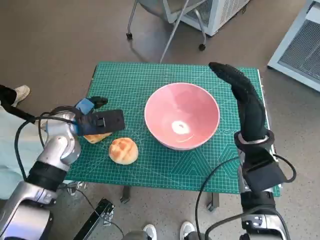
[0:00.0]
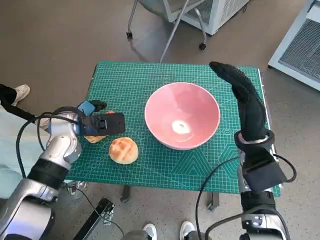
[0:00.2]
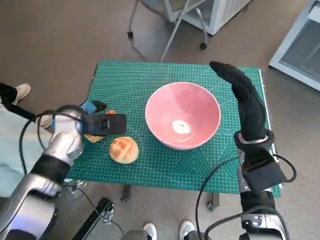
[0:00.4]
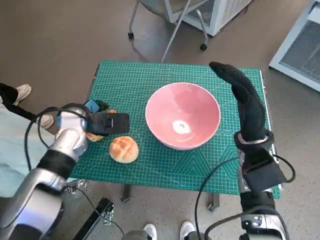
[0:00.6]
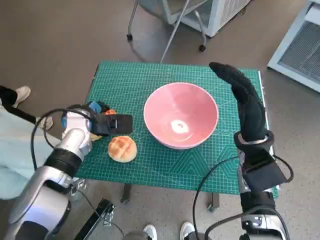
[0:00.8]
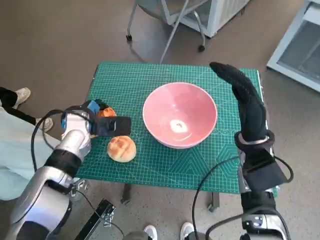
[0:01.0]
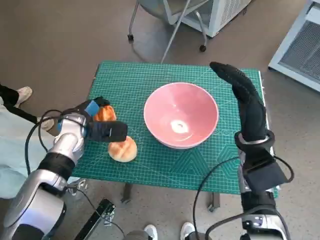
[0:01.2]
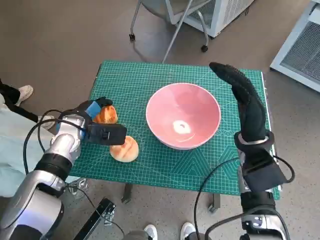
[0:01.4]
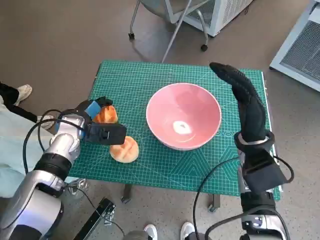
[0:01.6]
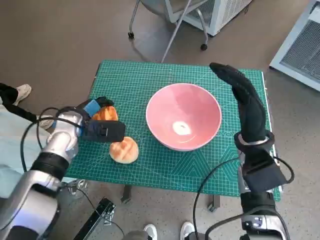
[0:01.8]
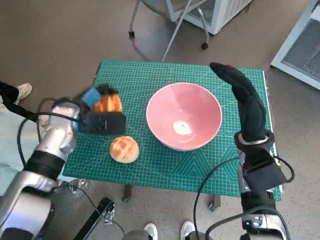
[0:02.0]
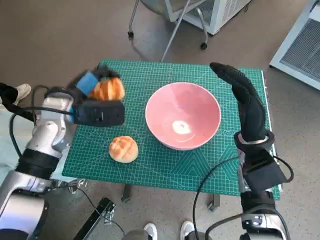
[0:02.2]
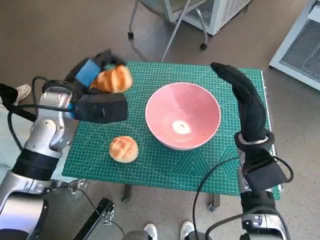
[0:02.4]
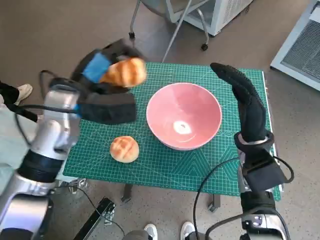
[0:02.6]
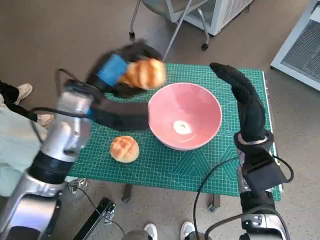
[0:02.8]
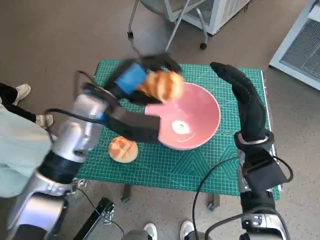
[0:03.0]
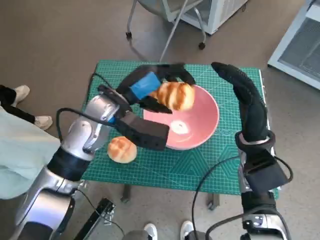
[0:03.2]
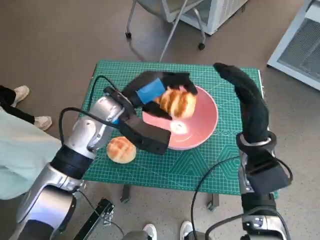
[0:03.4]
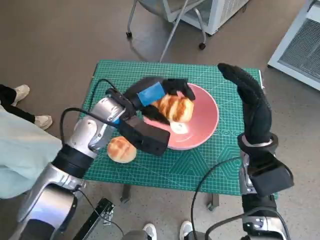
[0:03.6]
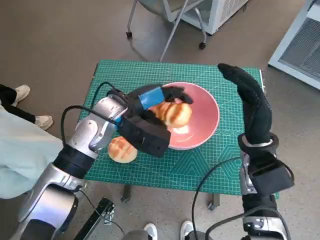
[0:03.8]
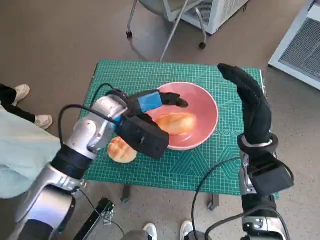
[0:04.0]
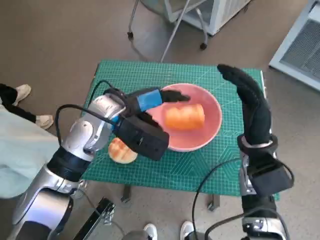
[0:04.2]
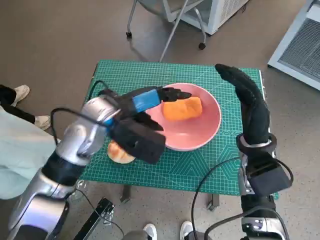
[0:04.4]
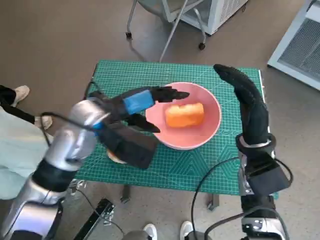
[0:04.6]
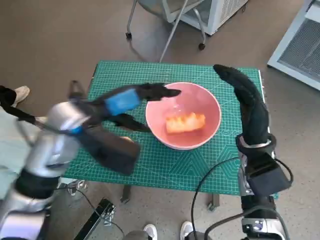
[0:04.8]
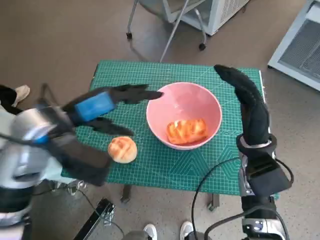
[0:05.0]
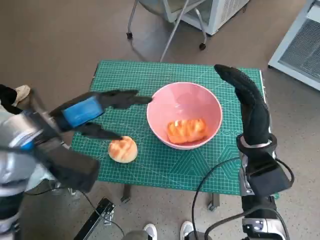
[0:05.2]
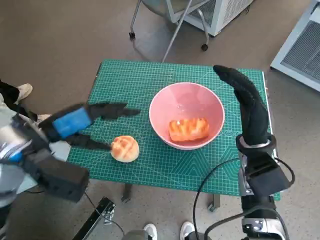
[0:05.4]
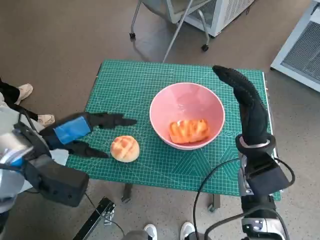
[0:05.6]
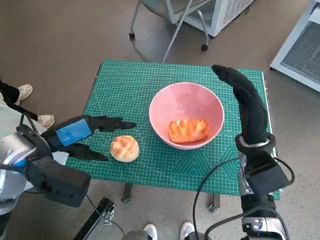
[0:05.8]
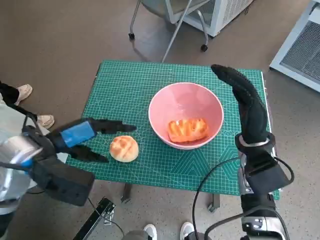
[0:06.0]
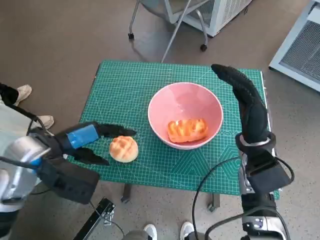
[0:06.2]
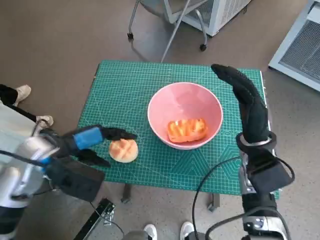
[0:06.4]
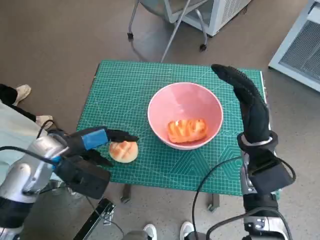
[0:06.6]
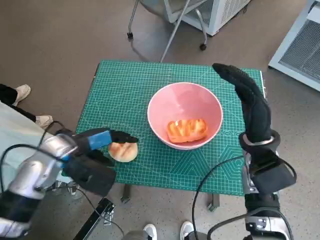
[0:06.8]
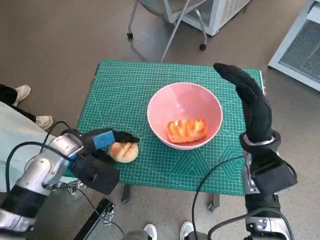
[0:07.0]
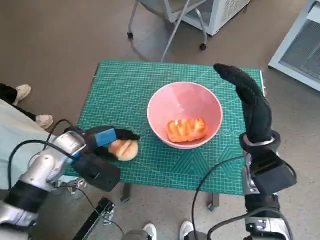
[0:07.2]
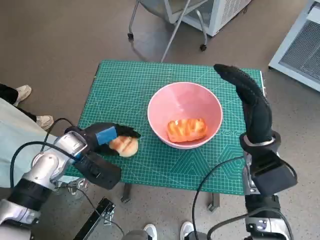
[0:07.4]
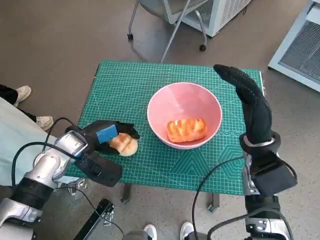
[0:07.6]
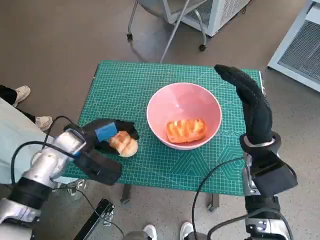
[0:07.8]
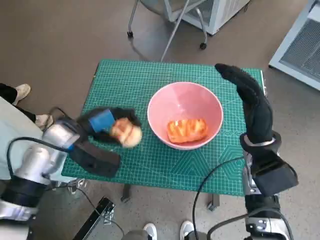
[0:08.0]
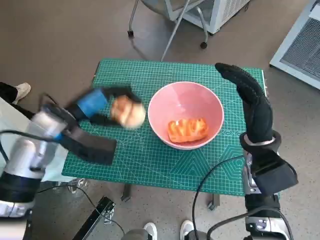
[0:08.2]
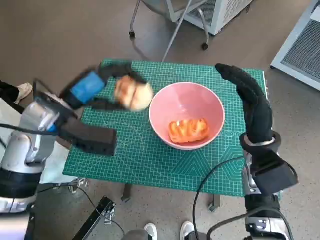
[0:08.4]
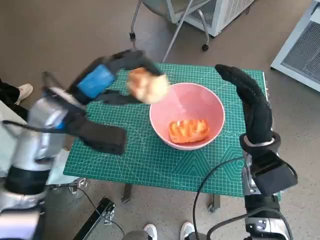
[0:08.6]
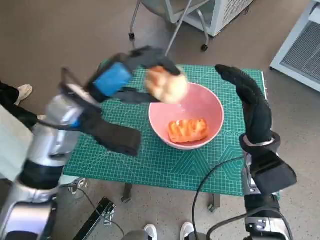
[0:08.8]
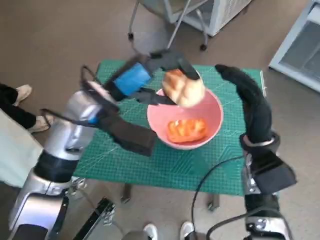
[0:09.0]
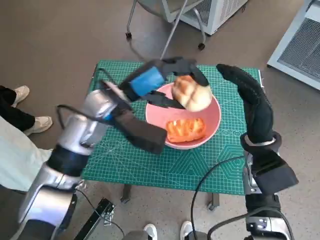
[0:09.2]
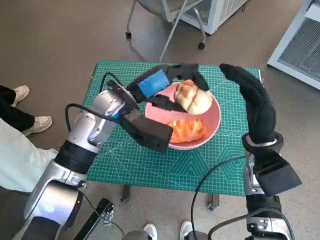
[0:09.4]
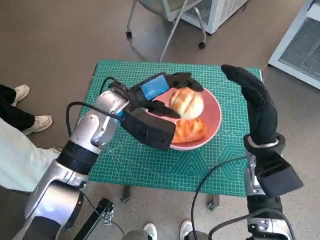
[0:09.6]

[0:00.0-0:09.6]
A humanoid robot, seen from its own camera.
Task of the whole recording: Push the bowl to the center of the table and put the bread into the bowl.
Step, 0:01.0 to 0:04.6: Place the long bread in pink bowl with left hand.
Step, 0:05.0 to 0:07.0: Grasp the round bread with left hand.
0:00.0 to 0:01.6: There are only small adjustments of the hands.
0:01.6 to 0:03.2: The left hand shifts some 15 cm to the right and upward.
0:03.2 to 0:04.8: The left hand shifts by roughly 5 cm.
0:04.8 to 0:06.4: The left hand heads to the left, covering approximately 5 cm.
0:06.4 to 0:08.0: The left hand moves approximately 5 cm.
0:08.0 to 0:09.6: The left hand heads to the right and upward, covering approximately 10 cm.

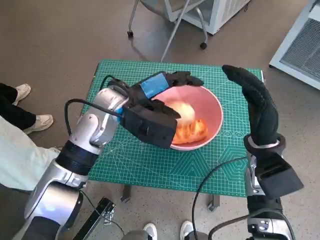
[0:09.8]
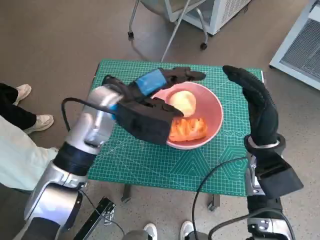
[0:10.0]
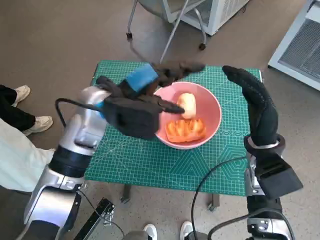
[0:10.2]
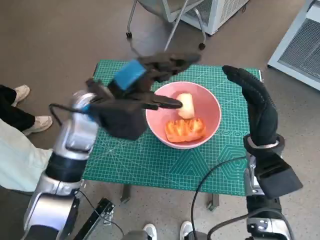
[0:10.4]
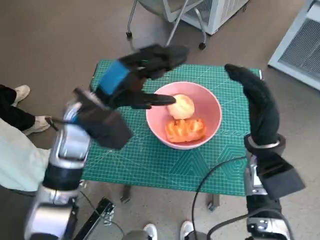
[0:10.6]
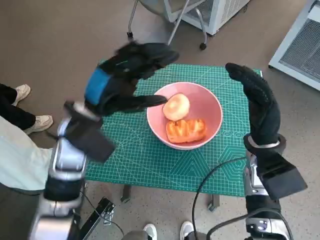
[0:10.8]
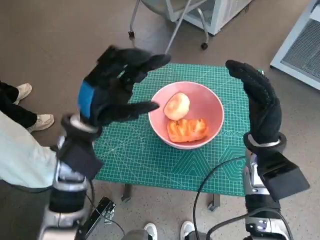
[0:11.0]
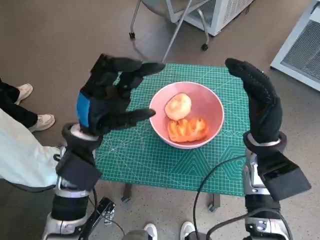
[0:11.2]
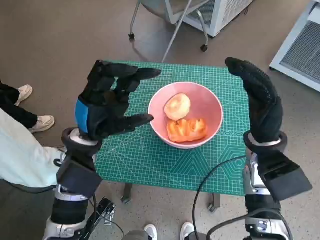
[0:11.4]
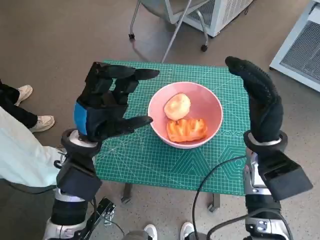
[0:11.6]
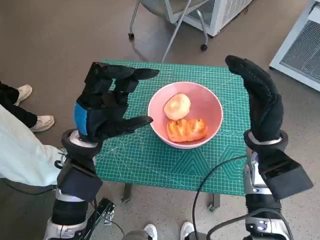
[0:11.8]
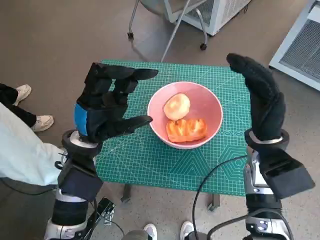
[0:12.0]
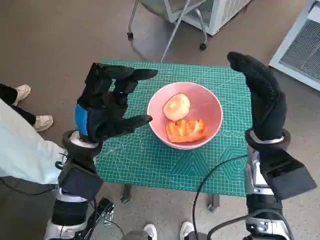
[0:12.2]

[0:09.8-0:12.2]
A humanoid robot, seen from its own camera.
Task of the whole recording: Push the bowl to the center of the table and put the bread into the bowl.
0:09.8 to 0:11.0: The left hand shifts approximately 10 cm backward and to the left.
0:11.0 to 0:12.2: There are only small adjustments of the hands.

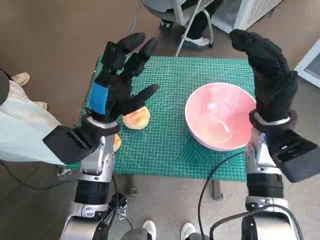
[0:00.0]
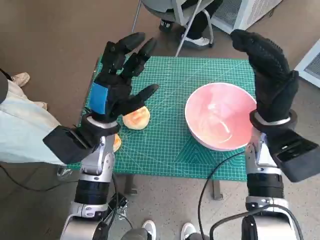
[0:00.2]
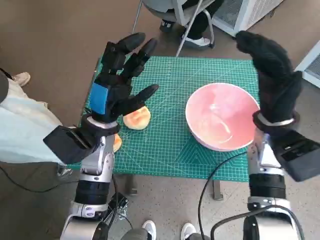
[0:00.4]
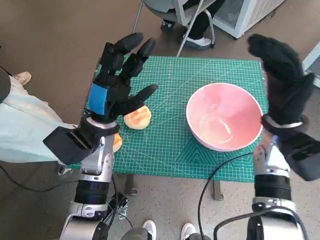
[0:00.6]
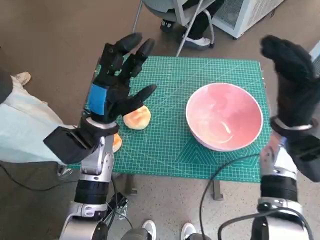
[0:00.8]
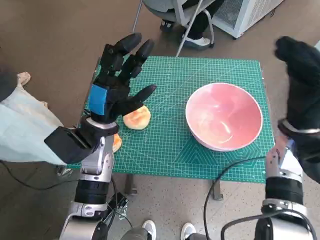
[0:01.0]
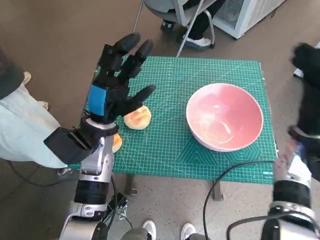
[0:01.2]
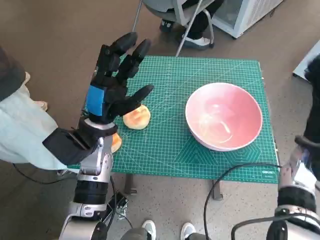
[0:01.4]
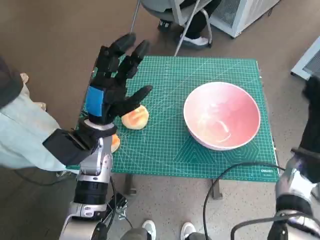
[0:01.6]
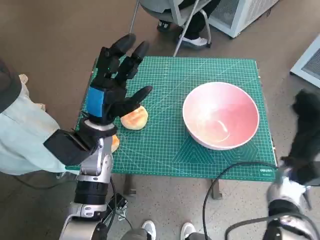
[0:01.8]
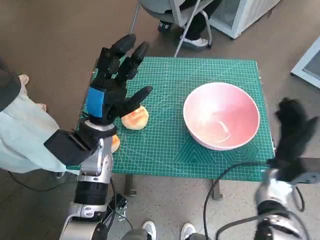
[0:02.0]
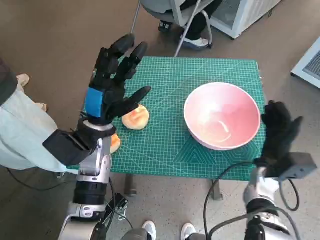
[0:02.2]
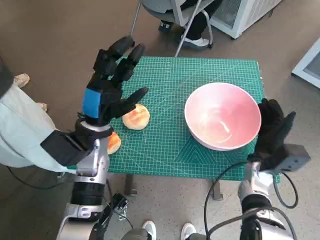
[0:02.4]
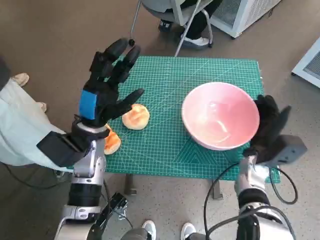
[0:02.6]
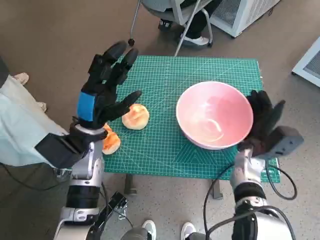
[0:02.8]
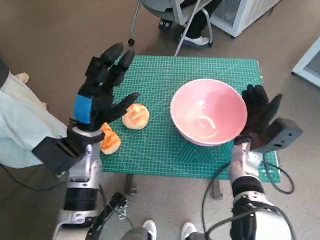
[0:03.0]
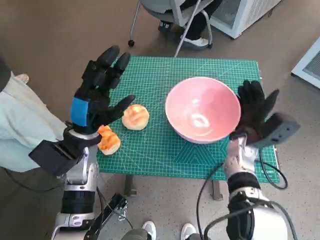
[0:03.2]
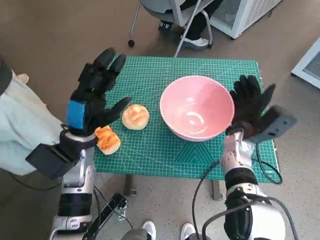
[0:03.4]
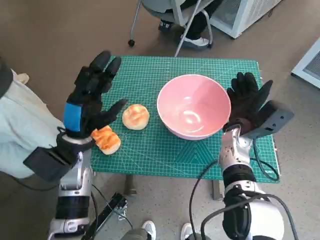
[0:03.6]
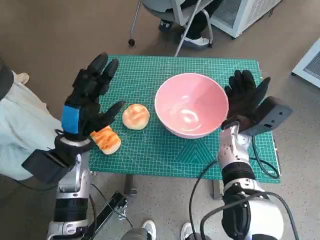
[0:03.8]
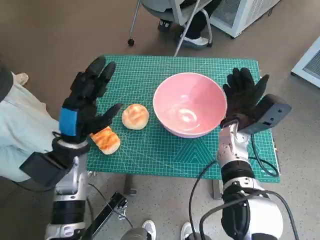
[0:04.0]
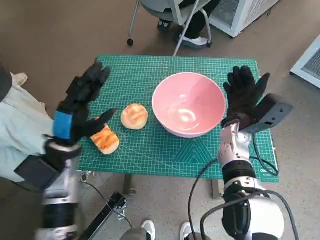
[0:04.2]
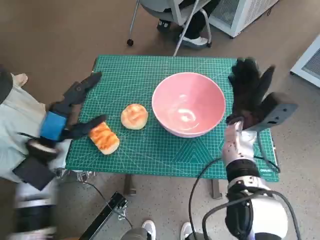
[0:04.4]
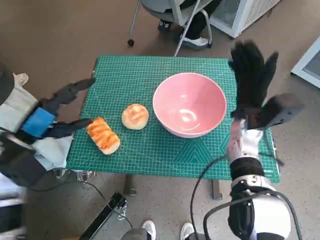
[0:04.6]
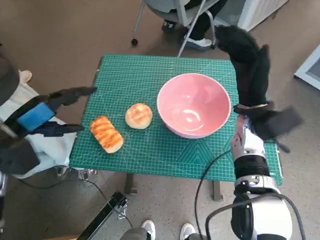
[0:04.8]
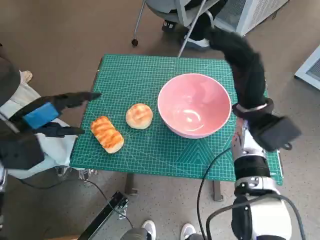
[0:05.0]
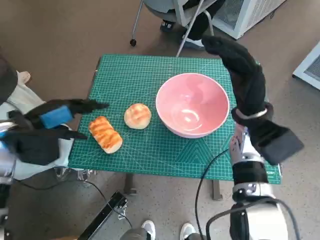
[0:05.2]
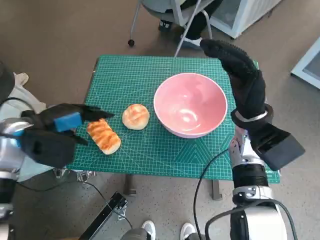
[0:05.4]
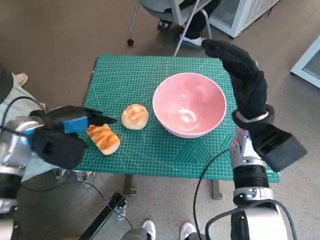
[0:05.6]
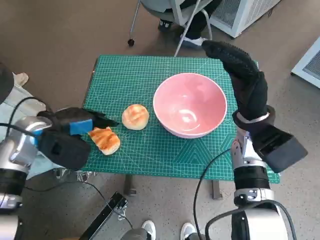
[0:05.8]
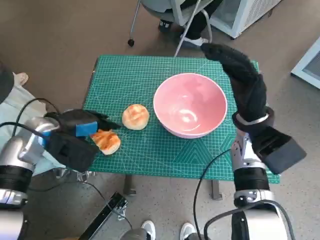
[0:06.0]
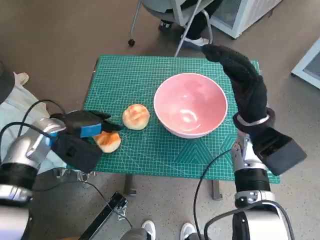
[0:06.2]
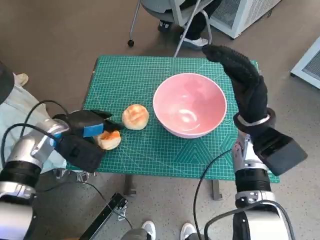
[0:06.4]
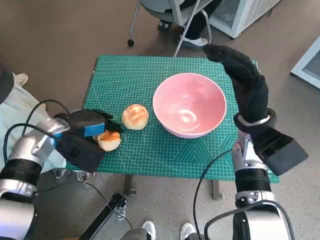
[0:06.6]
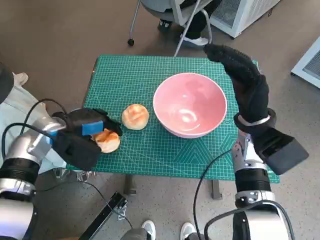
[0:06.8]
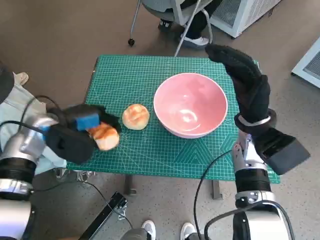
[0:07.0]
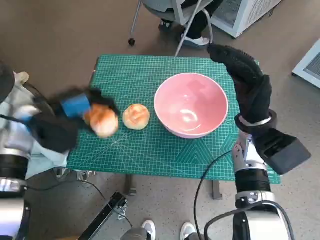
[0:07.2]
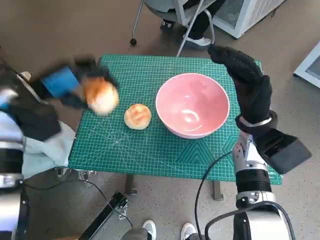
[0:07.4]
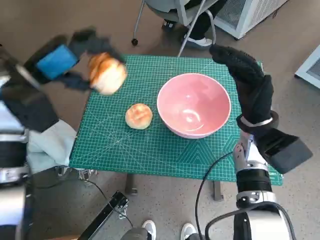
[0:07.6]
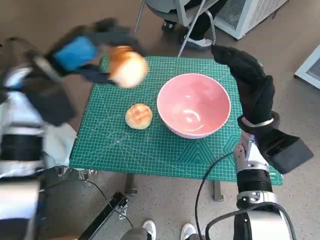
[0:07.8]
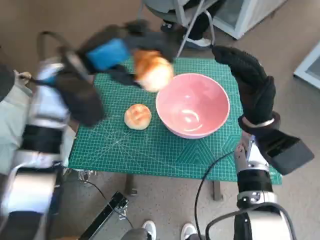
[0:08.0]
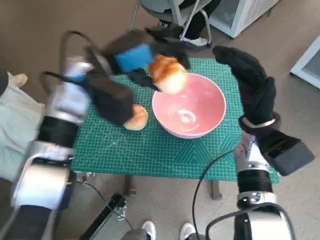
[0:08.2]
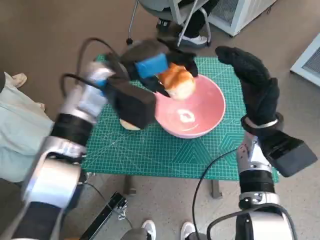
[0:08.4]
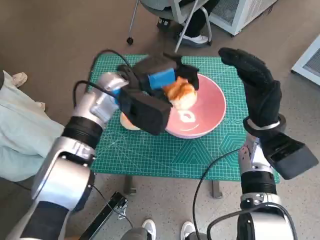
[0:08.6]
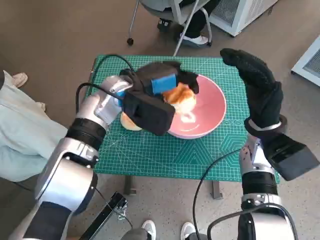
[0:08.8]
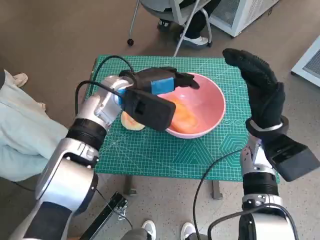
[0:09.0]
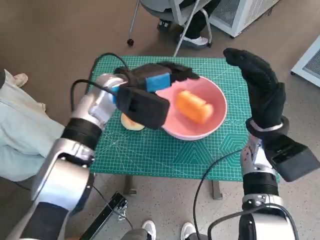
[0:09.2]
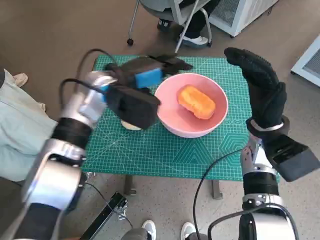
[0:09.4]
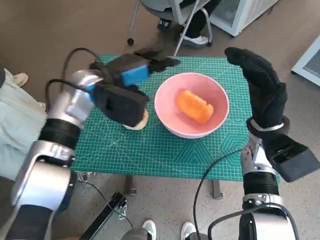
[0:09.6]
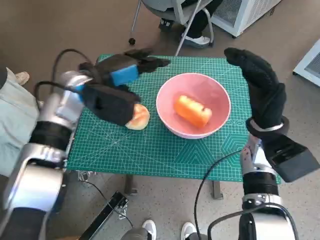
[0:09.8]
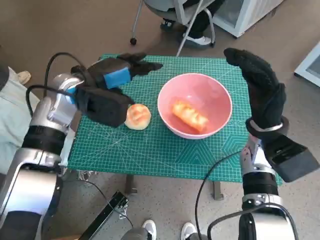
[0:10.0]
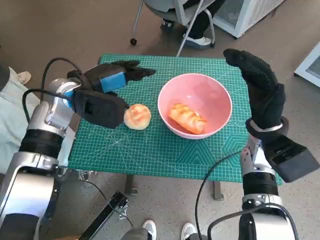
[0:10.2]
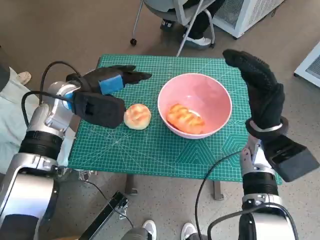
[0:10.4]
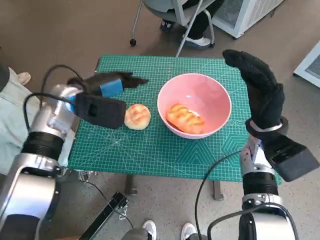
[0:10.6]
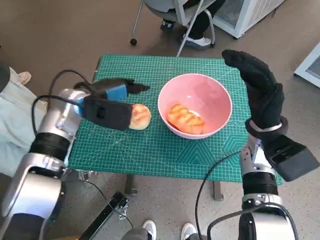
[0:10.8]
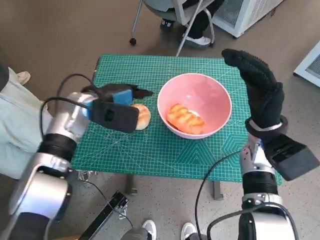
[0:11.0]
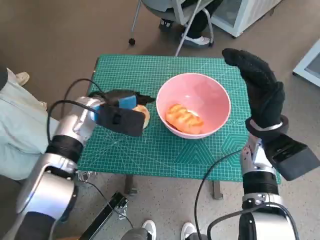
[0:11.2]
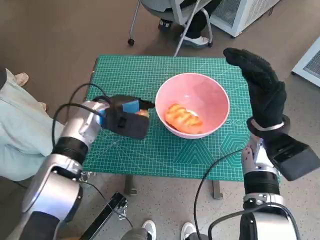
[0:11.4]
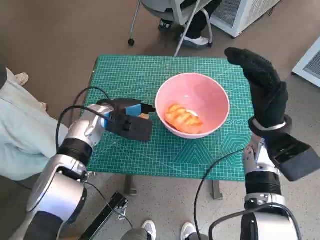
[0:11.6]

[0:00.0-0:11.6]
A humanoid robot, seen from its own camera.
Task of the whole recording: Push the bowl to the center of the table and put the bread into the bowl.
Step, 0:00.0 to 0:04.4: Move the pink bowl to the center of table with right hand.
Step, 0:04.6 to 0:06.6: Grasp the long bread with left hand.
Step, 0:06.8 to 0:09.0: Place the long bread in pink bowl with left hand.
0:01.4 to 0:02.8: The right hand moves to the left and downward, roughly 10 cm.
0:02.8 to 0:04.4: The left hand goes roughly 10 cm to the left. The right hand is displaced upward by some 5 cm.
0:04.4 to 0:05.8: The left hand shifts by some 5 cm. The right hand heads upward, covering some 5 cm.
0:05.8 to 0:07.2: The hands make only small movements.
0:07.2 to 0:08.8: The left hand goes about 15 cm to the right.
0:08.8 to 0:10.2: The left hand is displaced to the left by approximately 10 cm.
0:10.2 to 0:11.6: The left hand shifts approximately 10 cm downward.
